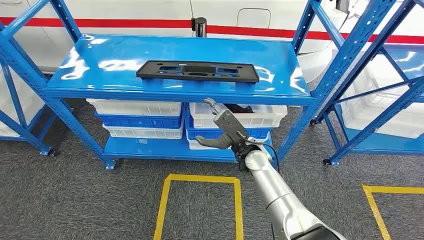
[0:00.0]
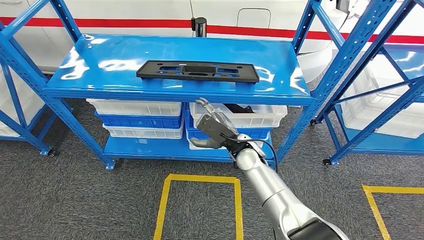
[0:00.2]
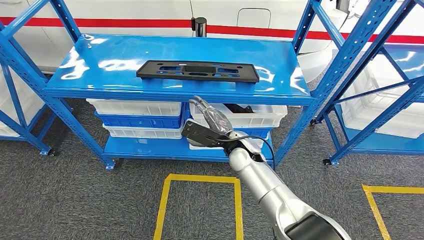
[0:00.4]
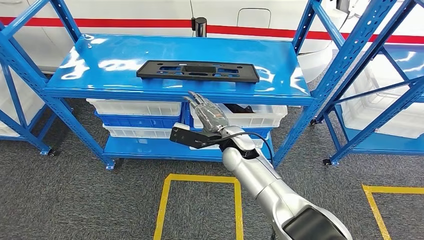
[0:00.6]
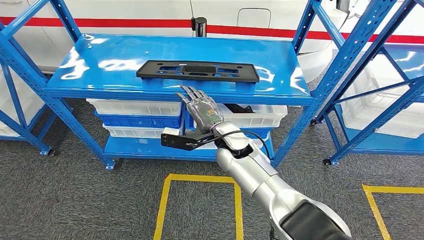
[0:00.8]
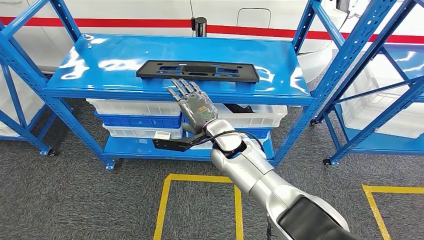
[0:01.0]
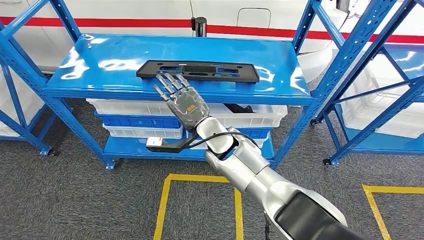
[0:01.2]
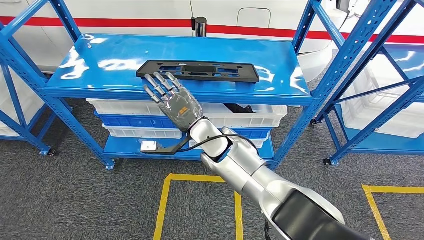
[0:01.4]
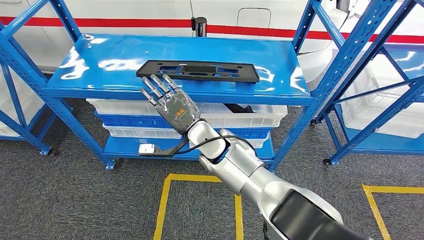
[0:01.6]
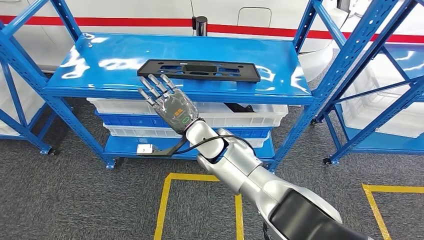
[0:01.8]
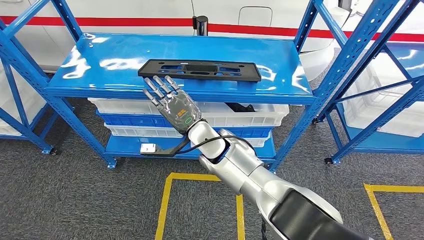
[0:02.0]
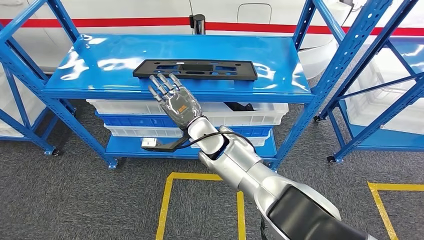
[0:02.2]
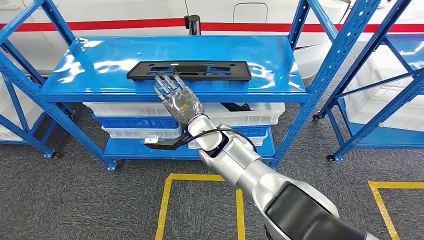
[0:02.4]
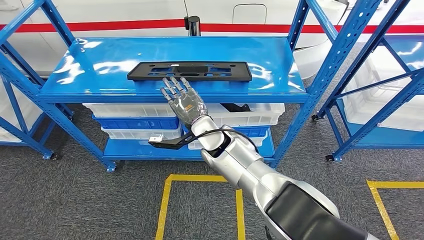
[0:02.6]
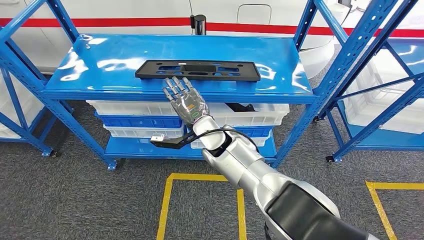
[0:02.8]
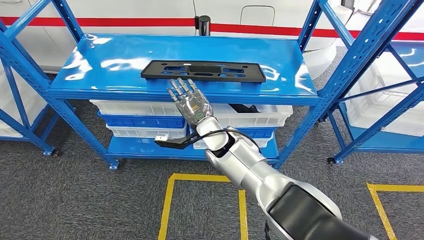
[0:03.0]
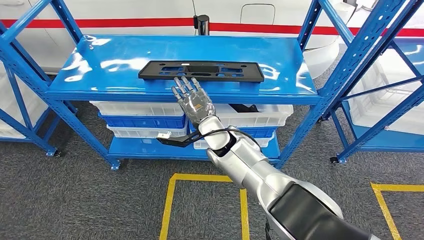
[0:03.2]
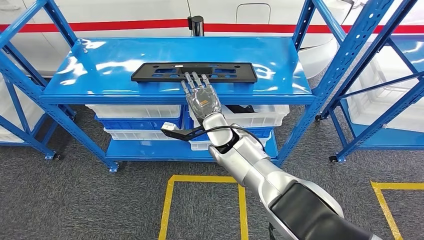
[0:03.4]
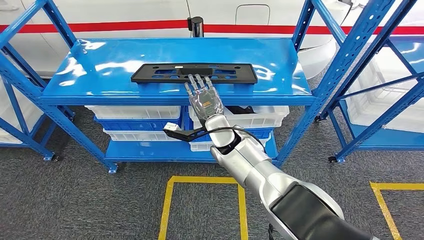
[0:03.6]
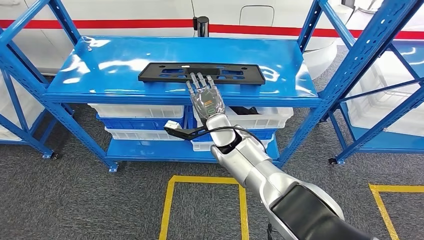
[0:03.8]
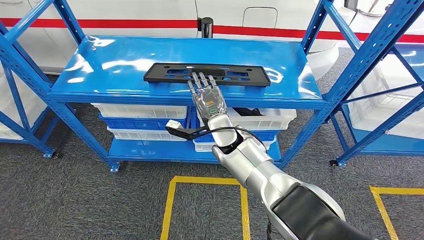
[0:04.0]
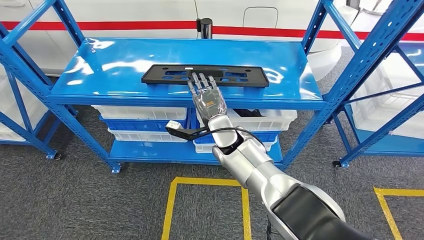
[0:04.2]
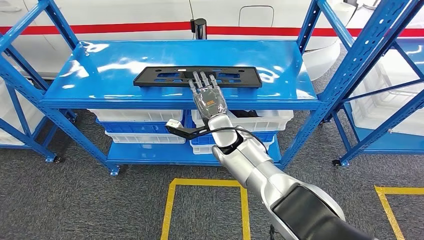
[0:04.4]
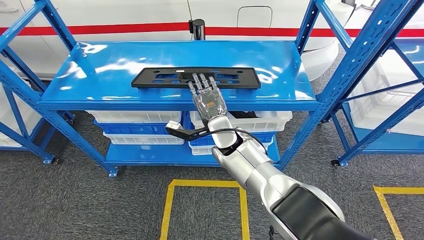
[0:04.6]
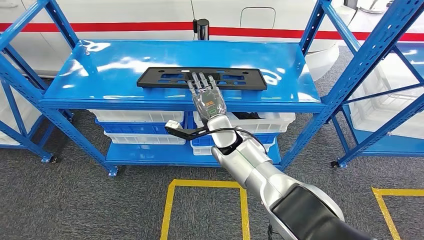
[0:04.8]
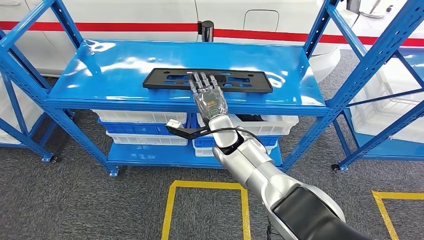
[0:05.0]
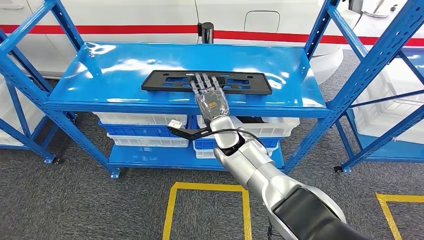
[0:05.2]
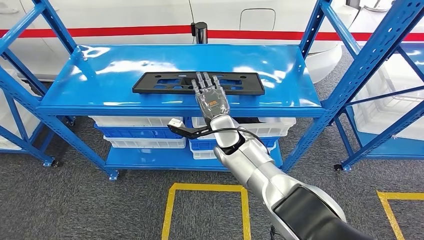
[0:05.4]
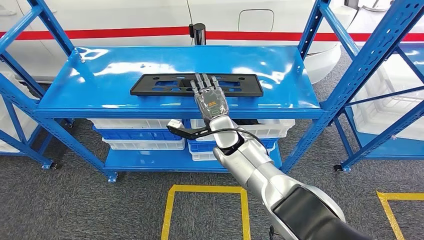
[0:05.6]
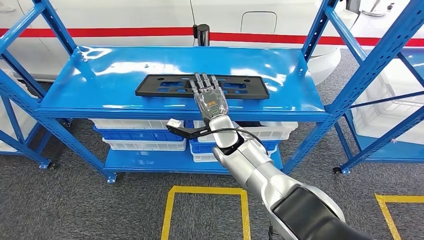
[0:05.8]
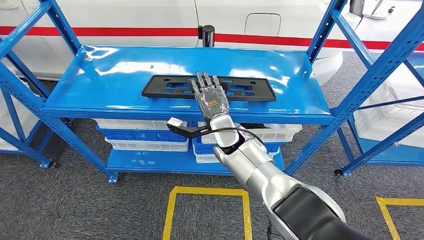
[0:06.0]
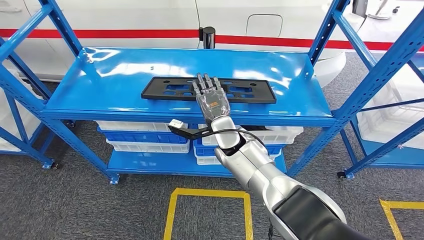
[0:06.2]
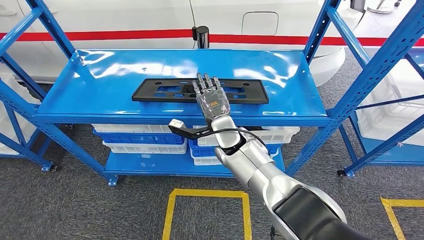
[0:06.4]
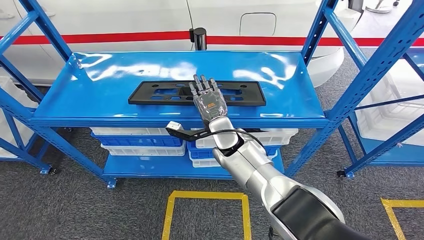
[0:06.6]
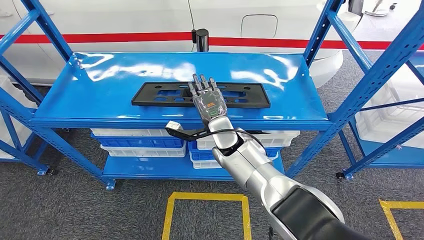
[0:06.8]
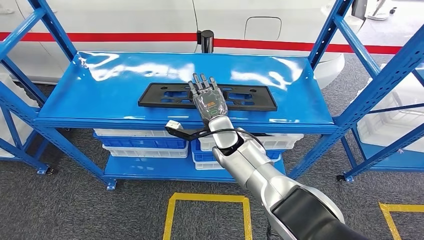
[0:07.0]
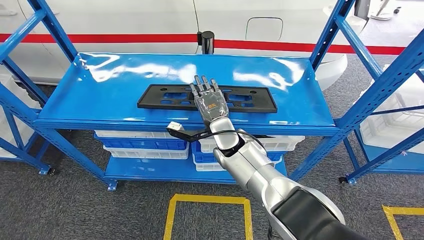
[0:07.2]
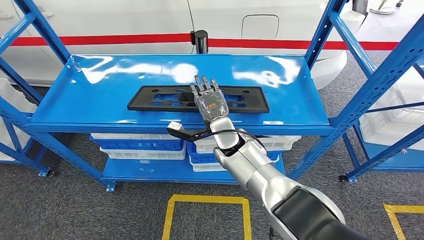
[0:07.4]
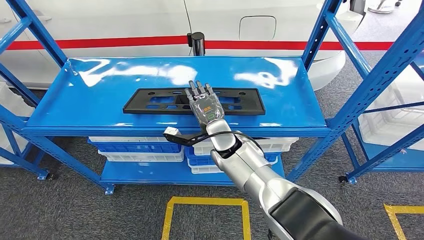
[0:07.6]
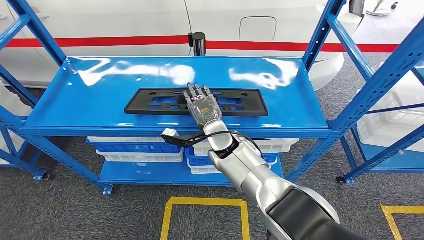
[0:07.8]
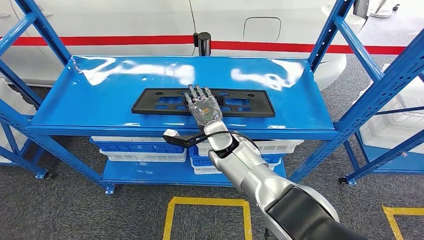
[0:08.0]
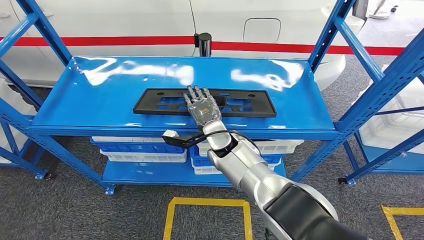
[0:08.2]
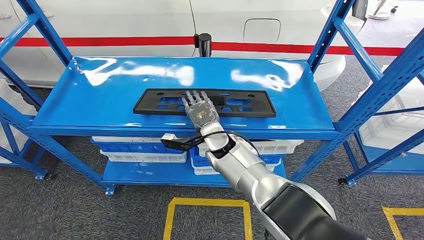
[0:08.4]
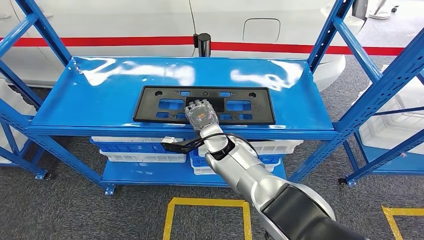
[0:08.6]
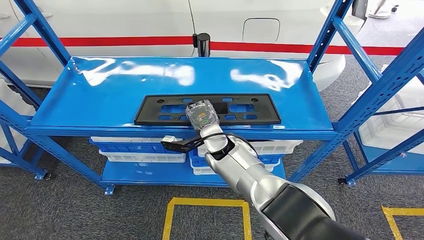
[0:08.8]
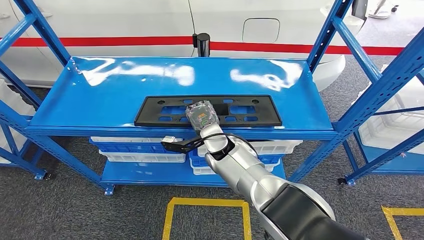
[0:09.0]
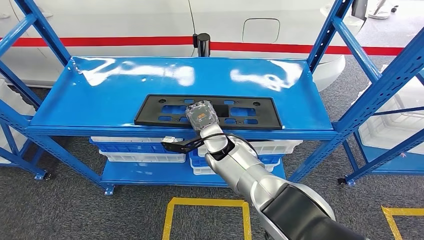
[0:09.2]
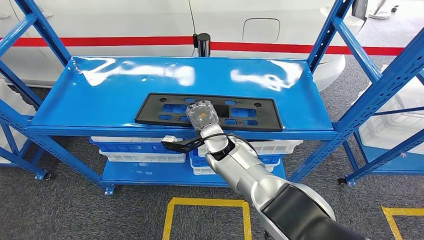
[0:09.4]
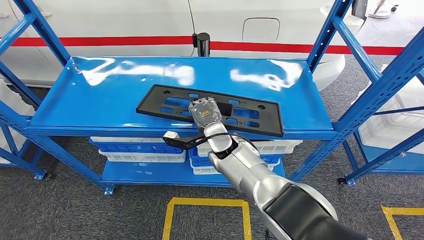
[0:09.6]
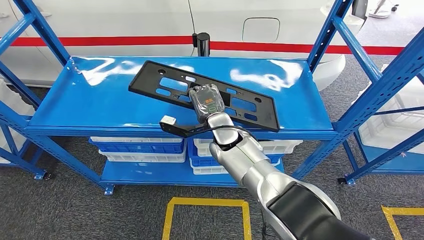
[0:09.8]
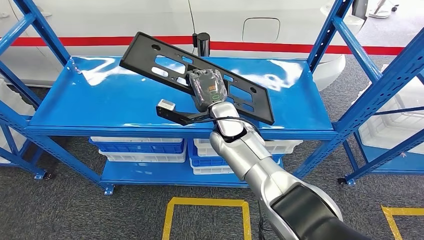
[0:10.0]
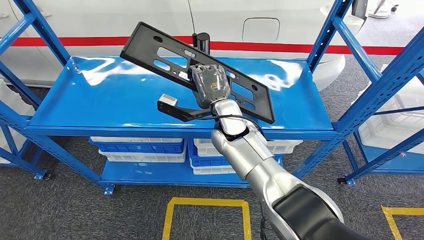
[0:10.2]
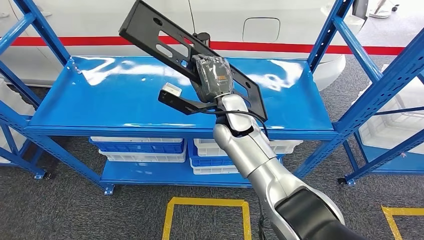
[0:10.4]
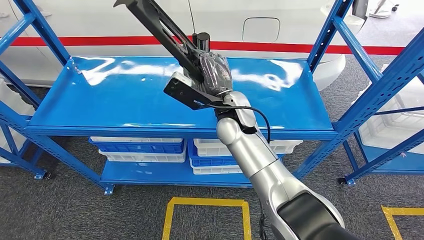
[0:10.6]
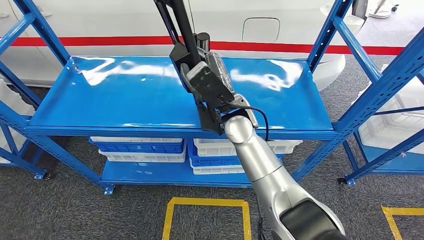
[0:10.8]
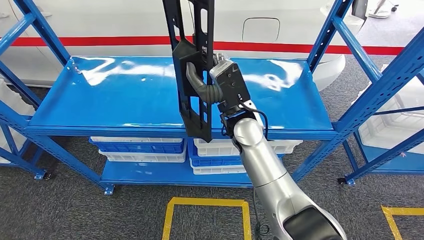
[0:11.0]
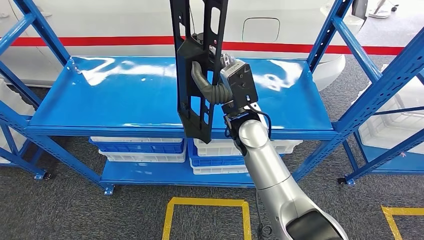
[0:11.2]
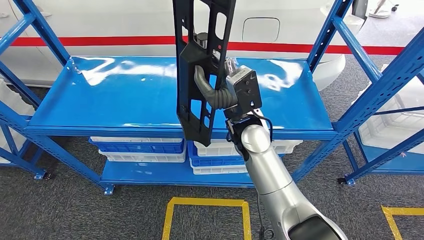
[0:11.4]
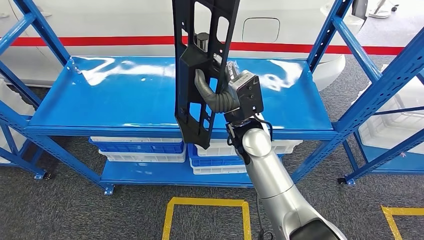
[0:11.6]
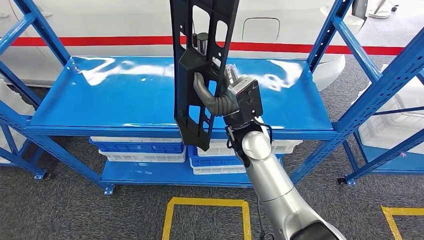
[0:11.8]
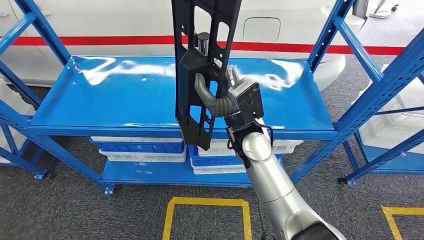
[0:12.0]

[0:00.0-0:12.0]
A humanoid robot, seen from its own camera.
0:09.0 to 0:10.4: The right hand moves upward, about 10 cm.
0:10.4 to 0:12.0: The right hand travels backward by about 5 cm.

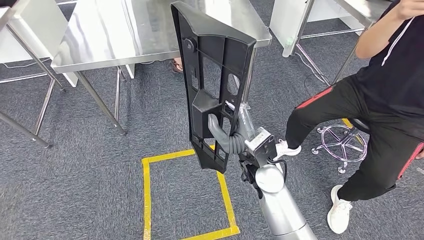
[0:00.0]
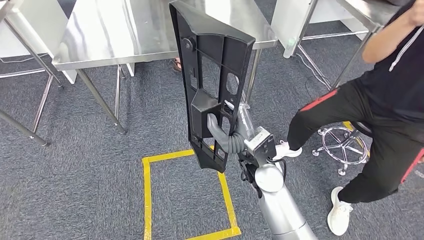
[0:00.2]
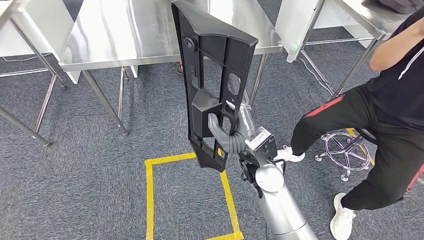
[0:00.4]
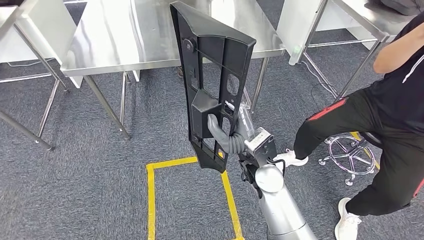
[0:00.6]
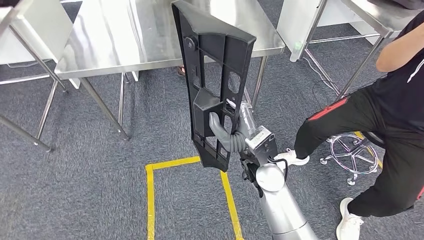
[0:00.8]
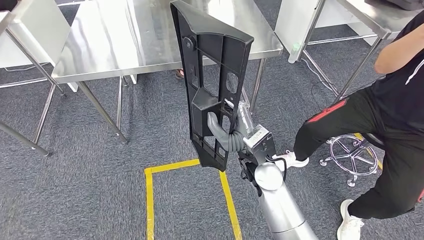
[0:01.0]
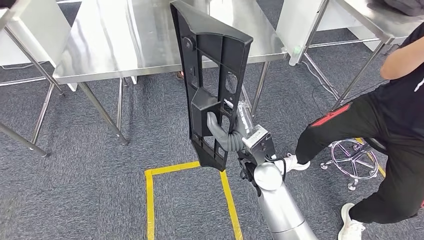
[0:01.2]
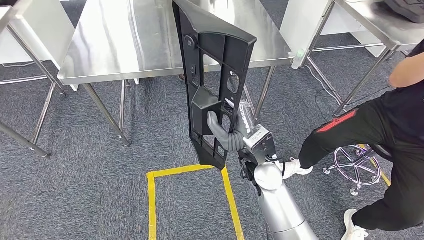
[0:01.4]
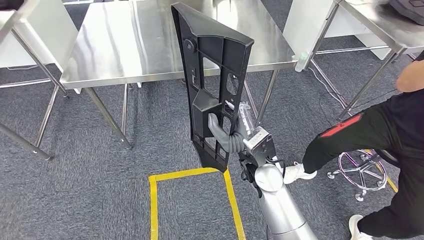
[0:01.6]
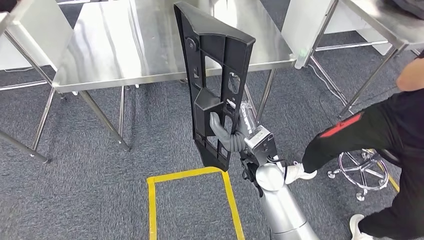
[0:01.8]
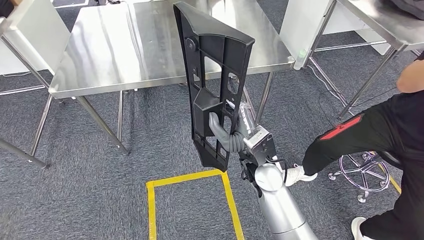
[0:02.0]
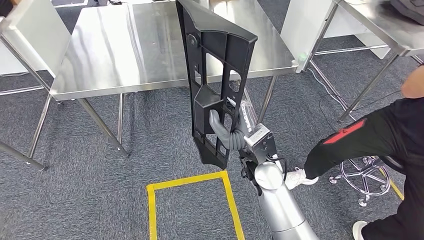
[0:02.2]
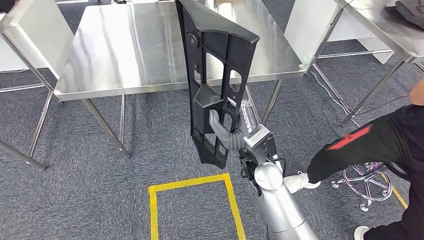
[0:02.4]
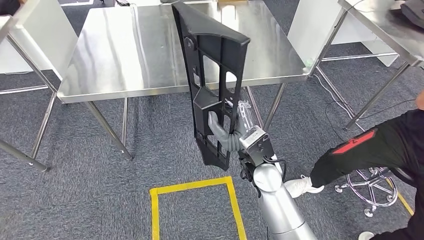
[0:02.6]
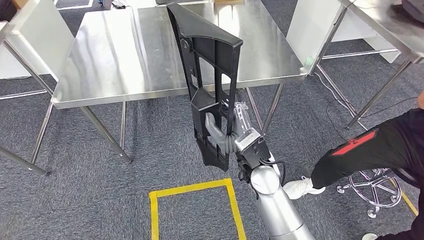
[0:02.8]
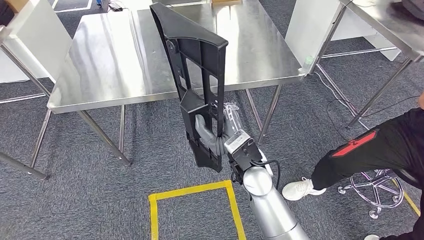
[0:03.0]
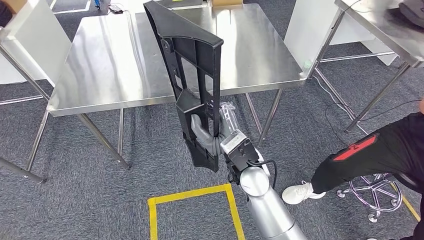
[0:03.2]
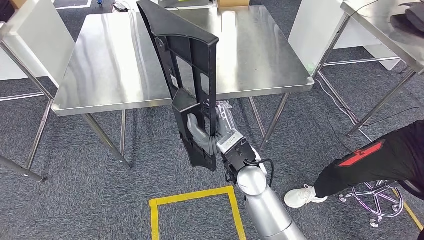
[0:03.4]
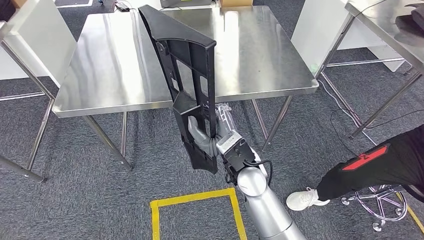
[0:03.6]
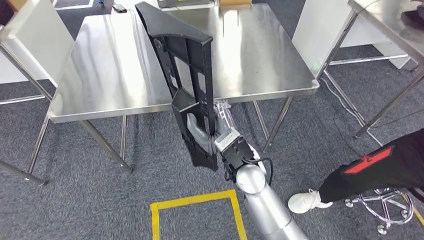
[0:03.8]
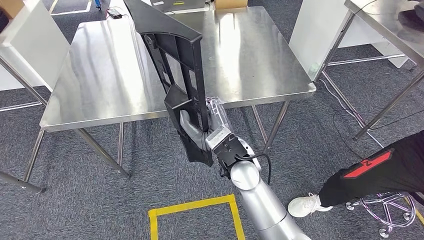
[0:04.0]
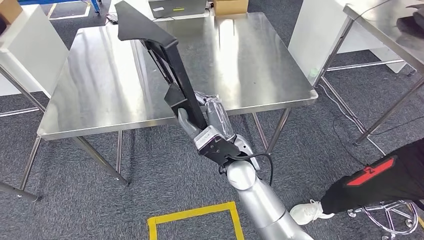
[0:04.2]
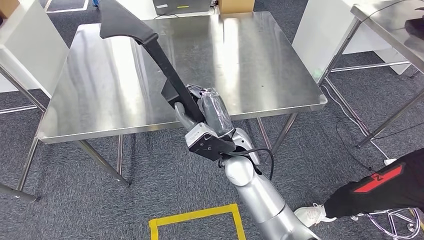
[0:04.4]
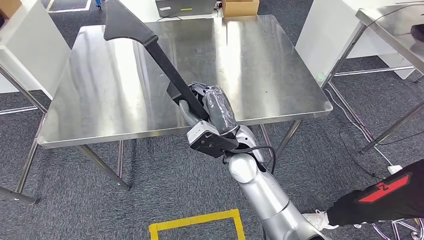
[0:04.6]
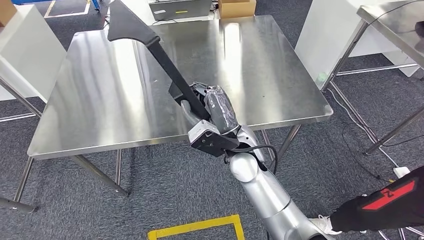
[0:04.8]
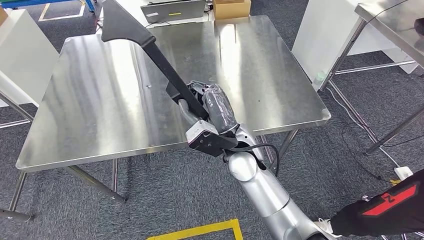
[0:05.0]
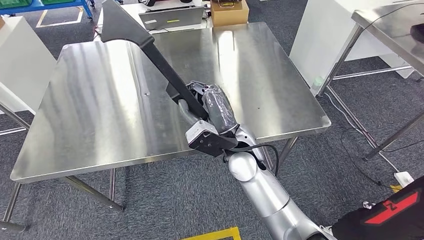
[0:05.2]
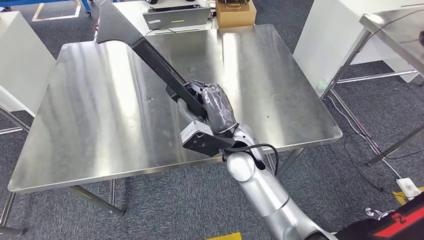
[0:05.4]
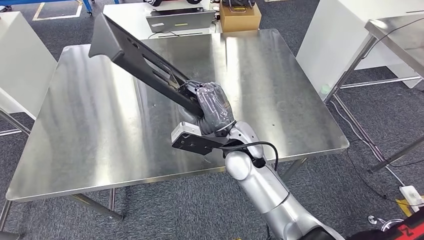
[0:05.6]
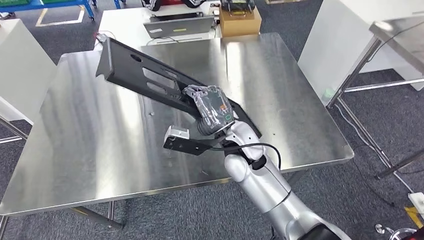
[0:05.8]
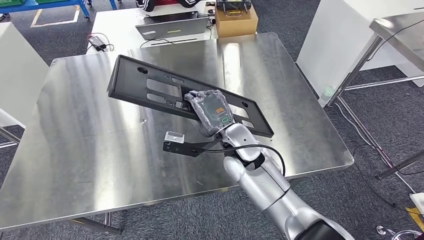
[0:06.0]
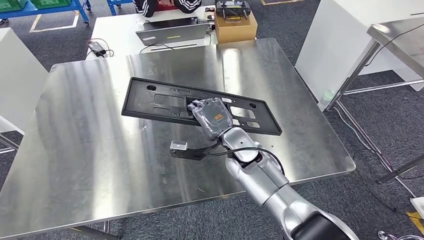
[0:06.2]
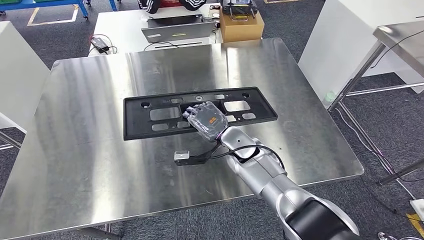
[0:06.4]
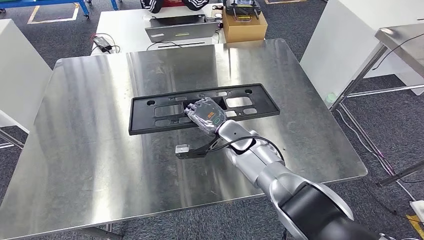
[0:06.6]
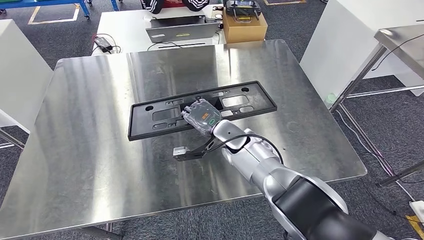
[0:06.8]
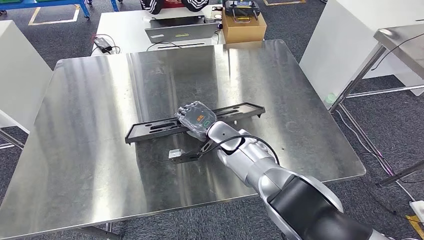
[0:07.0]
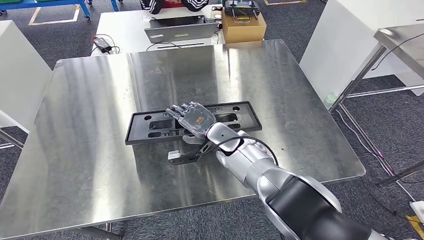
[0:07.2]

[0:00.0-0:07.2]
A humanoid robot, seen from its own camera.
Step, 0:00.0 to 0:03.4: Move the large material to the workbench.
